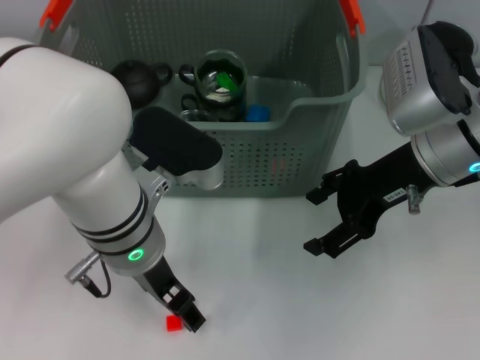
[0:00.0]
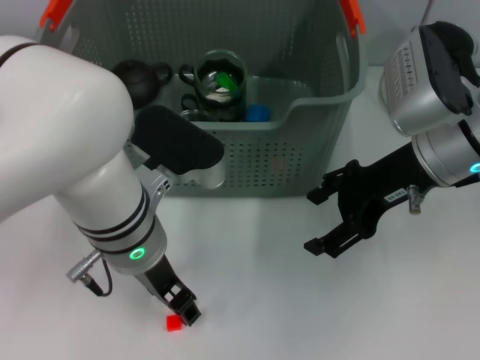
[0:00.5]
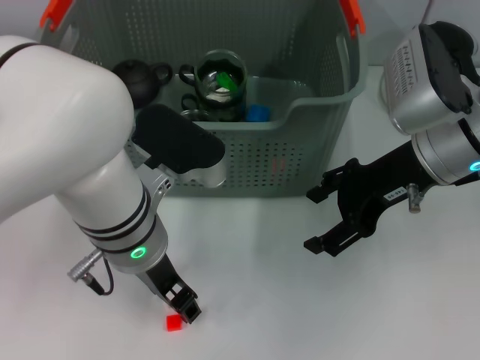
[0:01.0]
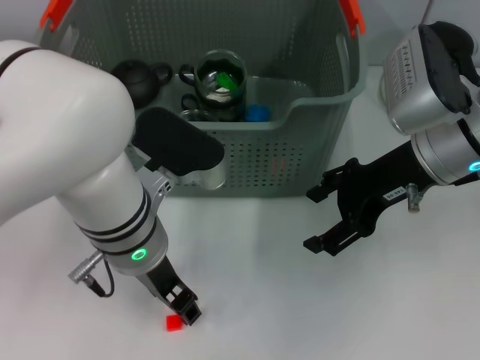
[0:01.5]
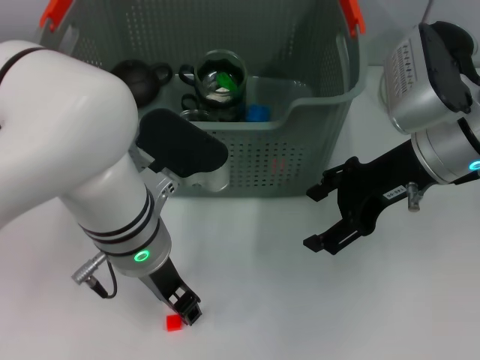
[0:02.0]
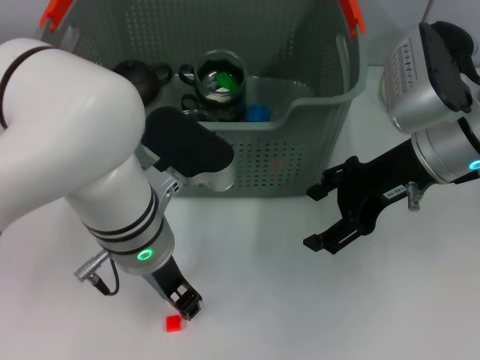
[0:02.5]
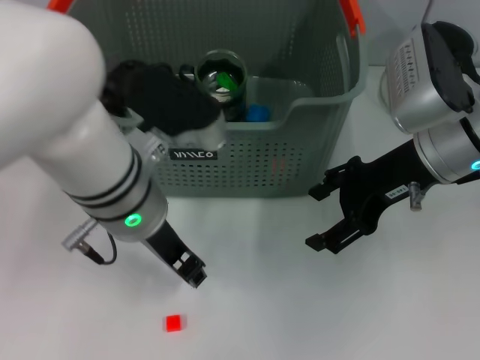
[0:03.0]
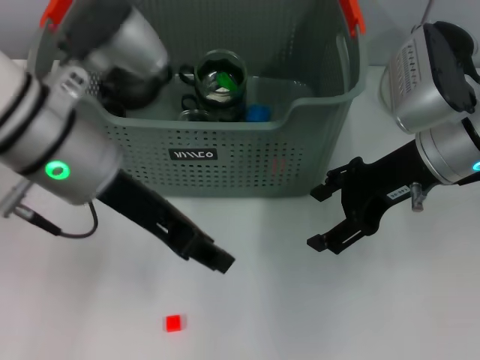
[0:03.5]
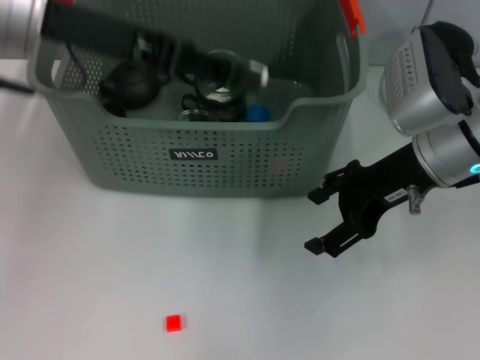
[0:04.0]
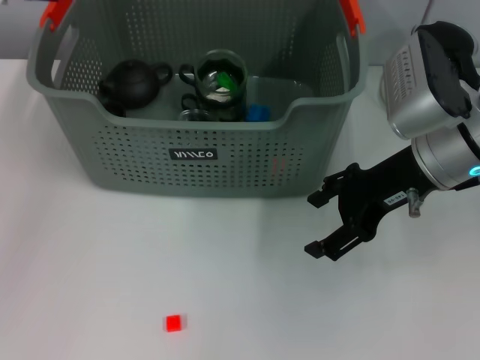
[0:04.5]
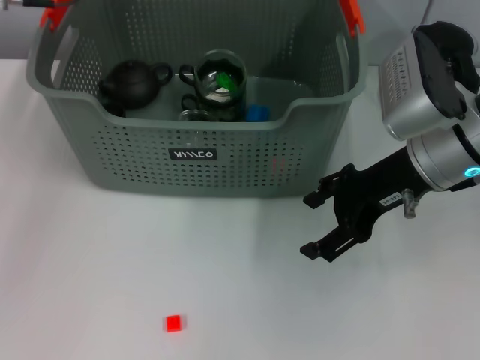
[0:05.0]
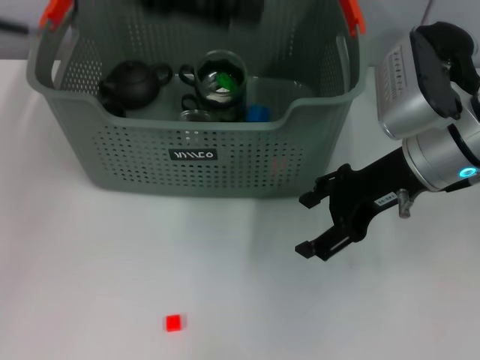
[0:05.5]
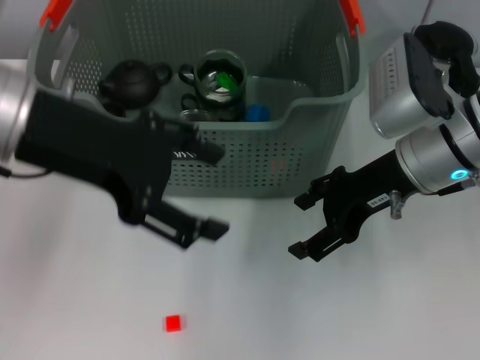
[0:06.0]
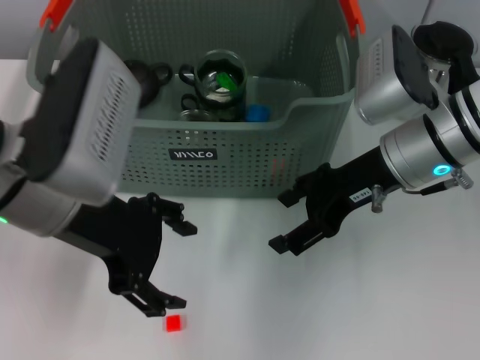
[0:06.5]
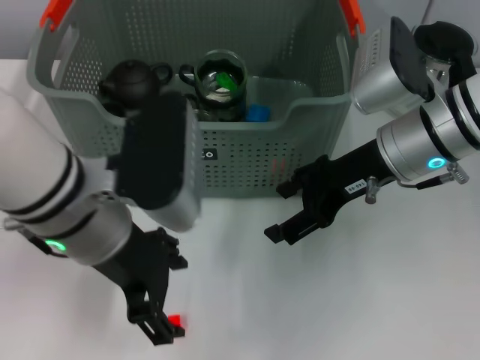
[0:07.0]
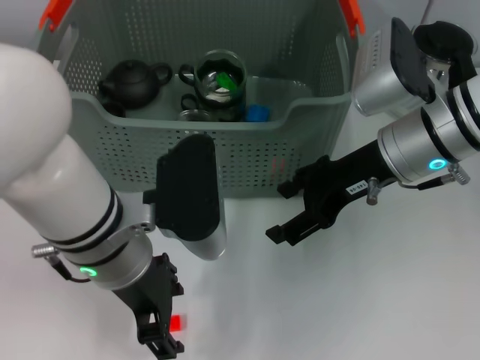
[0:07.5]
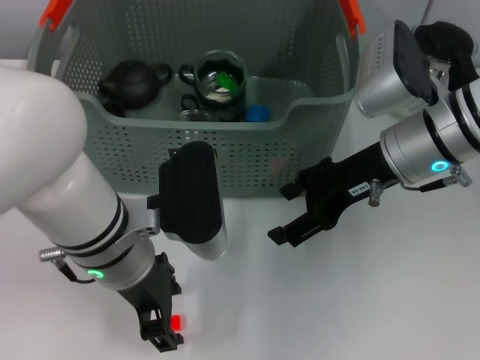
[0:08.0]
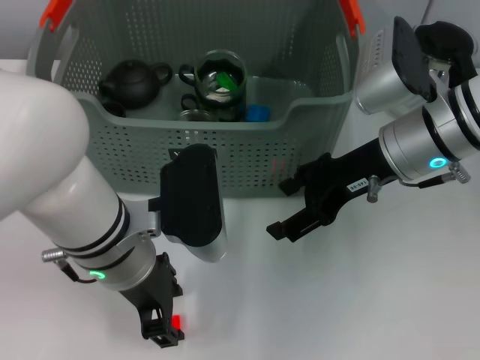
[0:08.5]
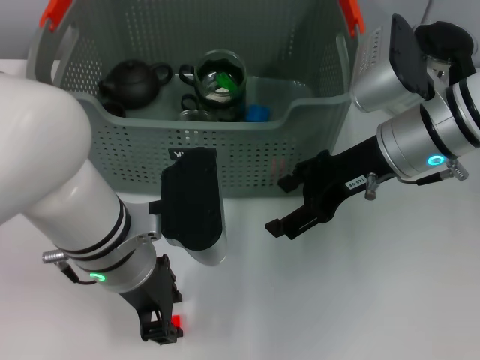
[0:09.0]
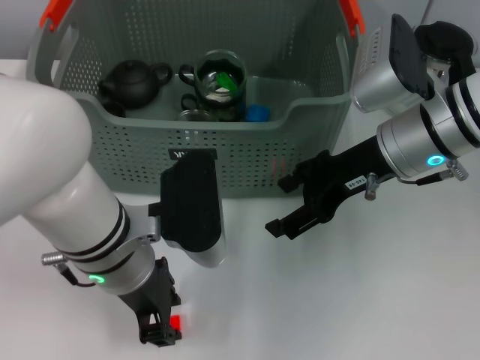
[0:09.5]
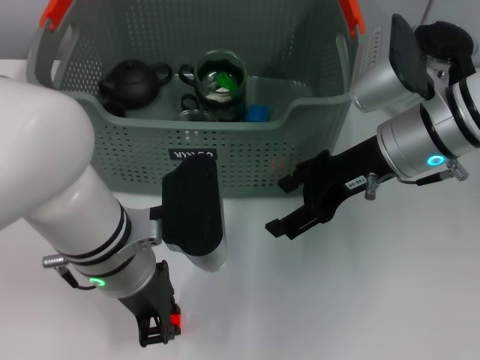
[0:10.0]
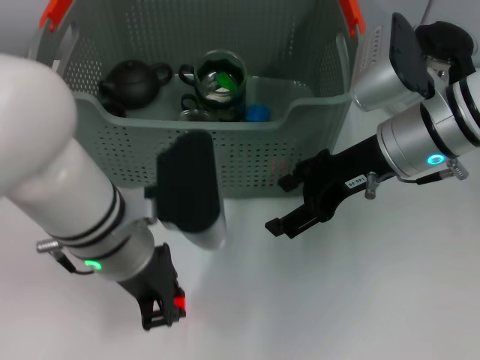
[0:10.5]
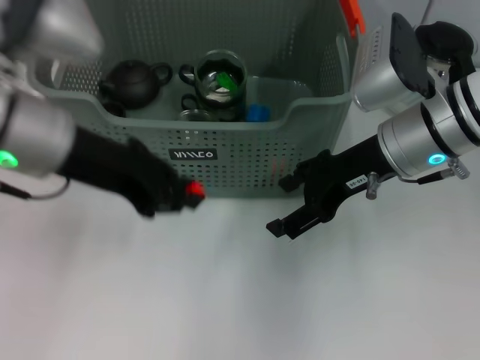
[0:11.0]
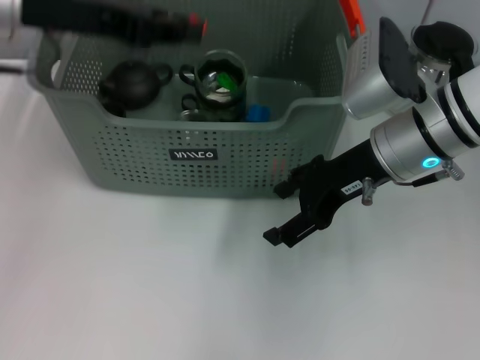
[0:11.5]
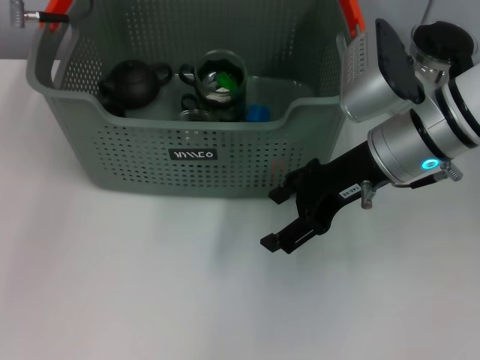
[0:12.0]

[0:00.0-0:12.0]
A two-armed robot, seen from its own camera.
Task of the whole recording: pick up the teacup on the table and place it into the storage bin, pick up the block on the table and place it into the storage bin.
Step, 0:00.0 to 0:02.0: Grasp the white block with left gripper.
Step, 0:03.0 to 0:05.0: Place the white block in the storage box with left gripper.
Step, 0:05.5 to 0:10.0: Grasp the orange block with left gripper.
0:00.0 to 0:02.0: The left gripper closes up.
0:02.0 to 0:04.0: The left gripper shifts about 20 cm upward and to the left.
0:04.0 to 0:06.0: The left gripper goes approximately 5 cm backward, and opens its fingers.
0:06.0 to 0:08.0: The left gripper shifts about 15 cm downward and to the right.
0:08.0 to 0:10.0: The left gripper closes.
0:10.0 to 0:12.0: The left gripper travels upward, forward and to the left by roughly 20 cm.

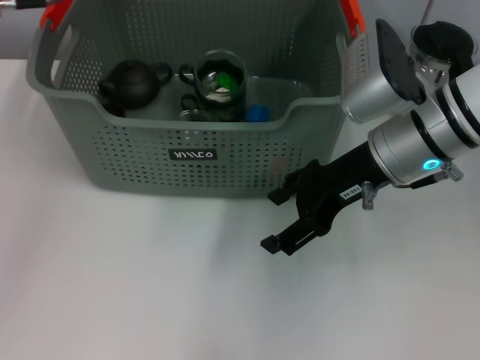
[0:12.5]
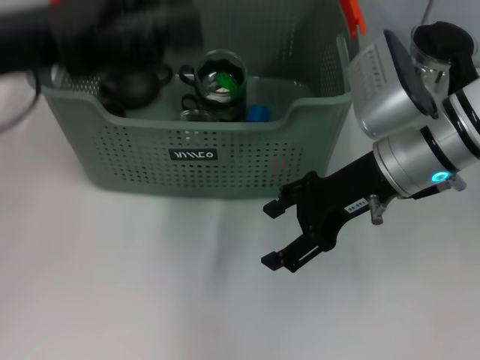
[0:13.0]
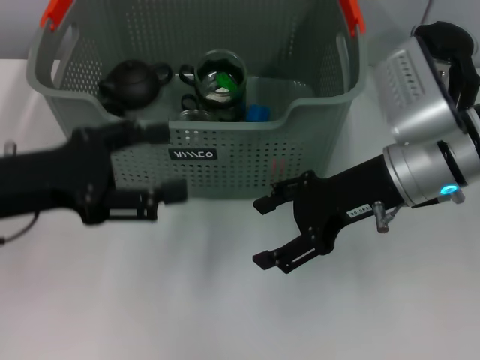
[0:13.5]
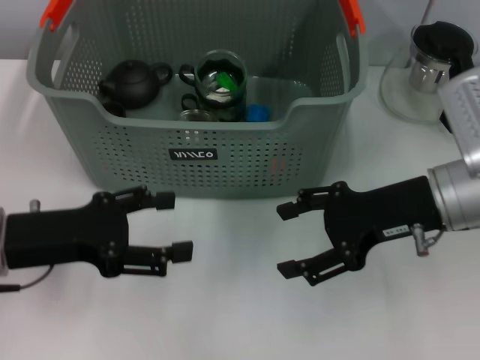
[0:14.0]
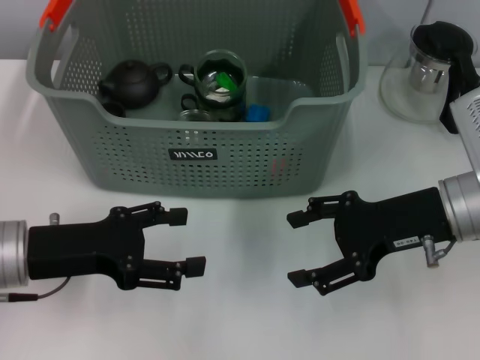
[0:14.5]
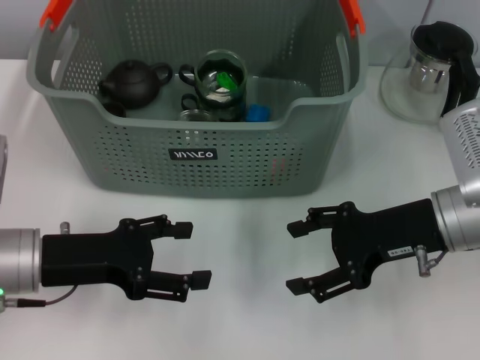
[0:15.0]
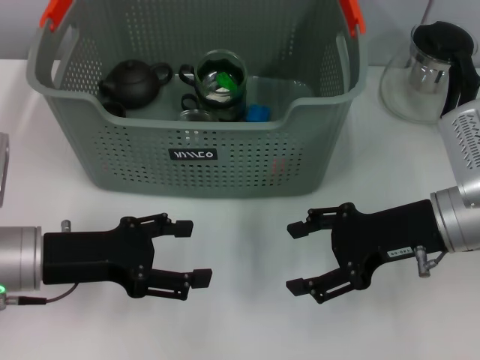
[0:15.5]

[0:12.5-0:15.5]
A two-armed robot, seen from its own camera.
Task of the whole recording: pick up the teacup on the table and place it into the storage bin, pick up the block on the table and place it into the storage bin.
0:12.5 to 0:14.0: The left gripper travels downward and backward by roughly 25 cm, and opens its fingers. The right gripper is displaced to the right by approximately 5 cm.
0:14.0 to 0:15.5: The grippers move only a little.
